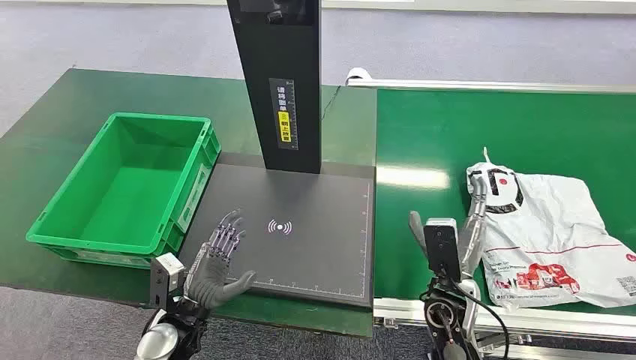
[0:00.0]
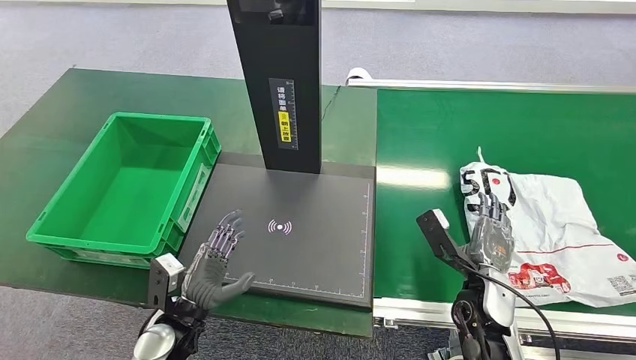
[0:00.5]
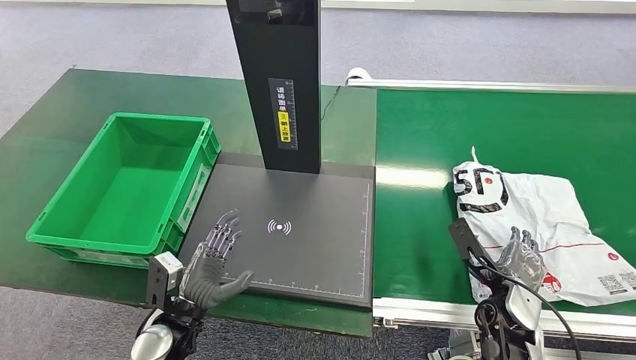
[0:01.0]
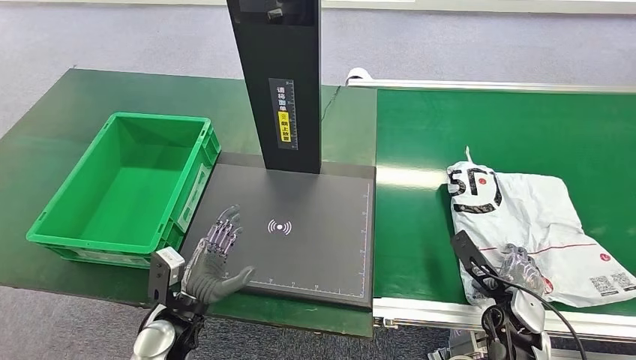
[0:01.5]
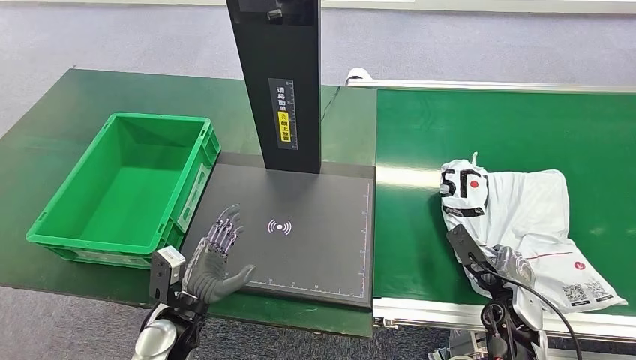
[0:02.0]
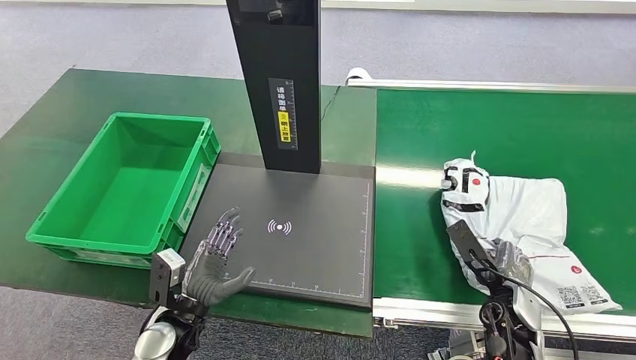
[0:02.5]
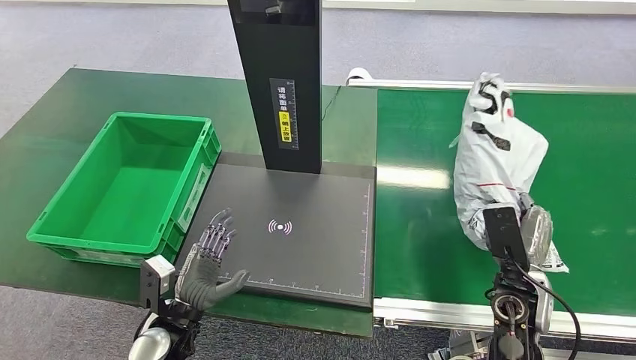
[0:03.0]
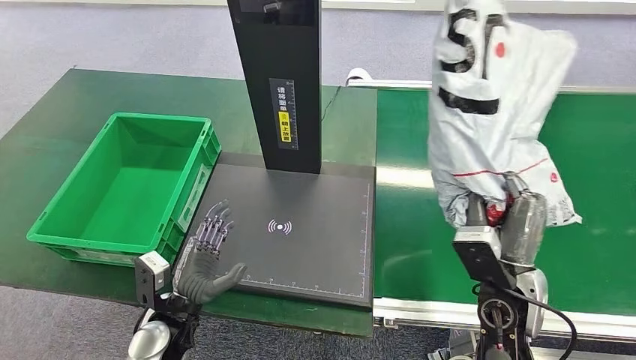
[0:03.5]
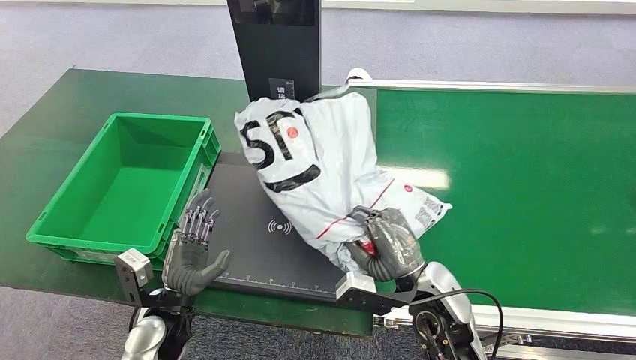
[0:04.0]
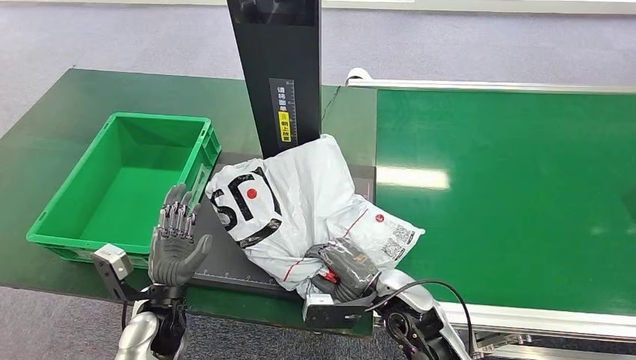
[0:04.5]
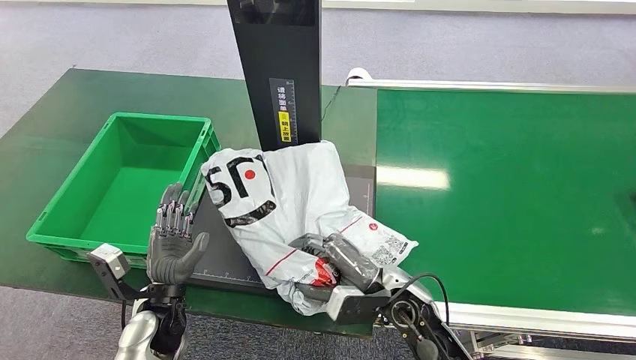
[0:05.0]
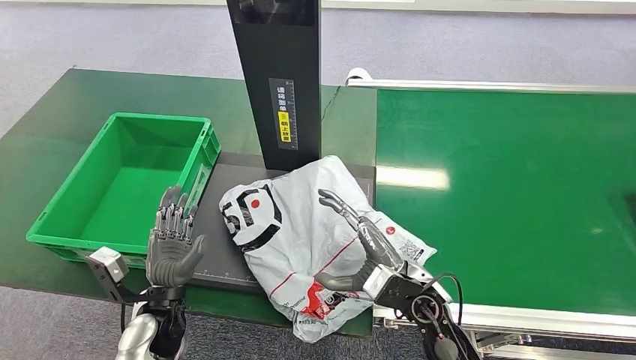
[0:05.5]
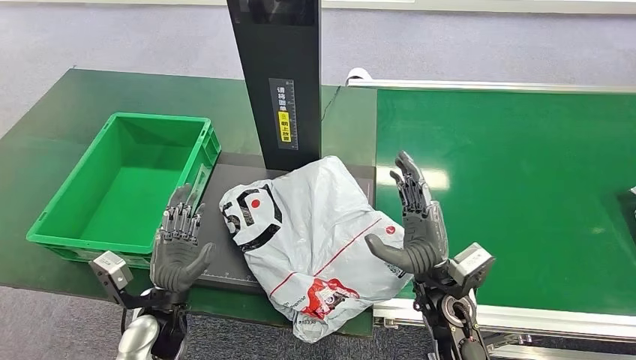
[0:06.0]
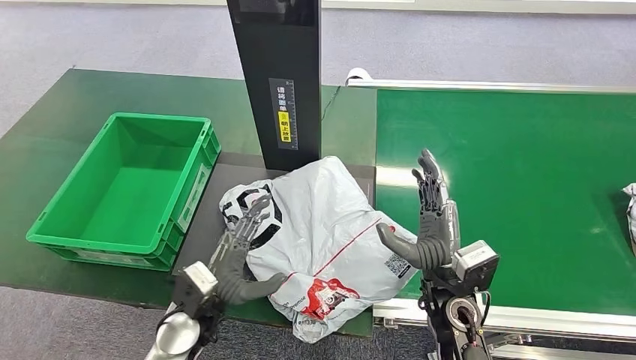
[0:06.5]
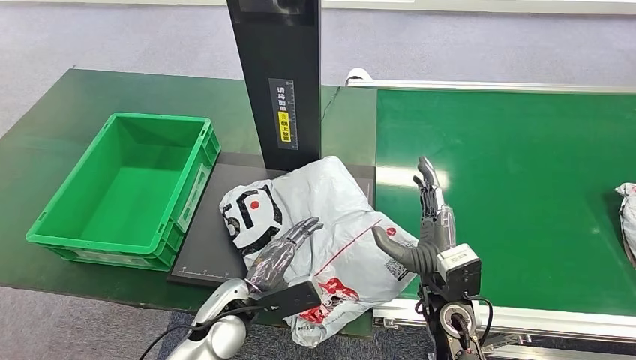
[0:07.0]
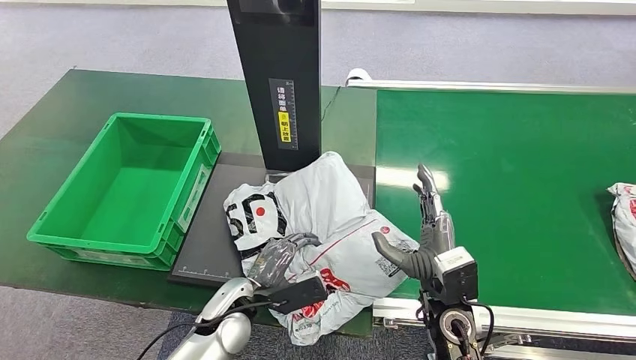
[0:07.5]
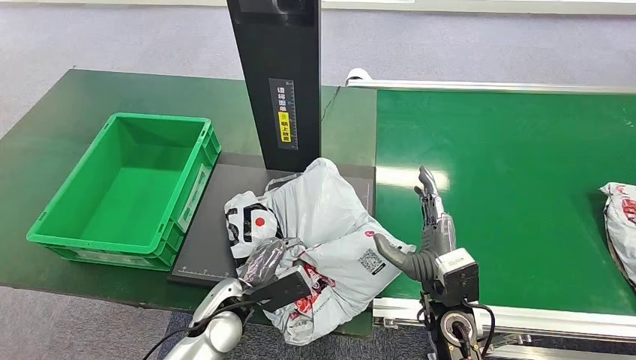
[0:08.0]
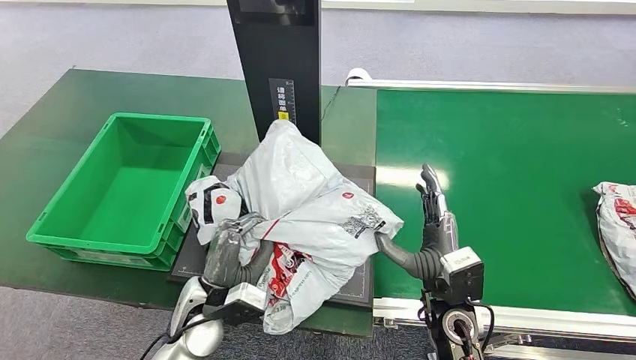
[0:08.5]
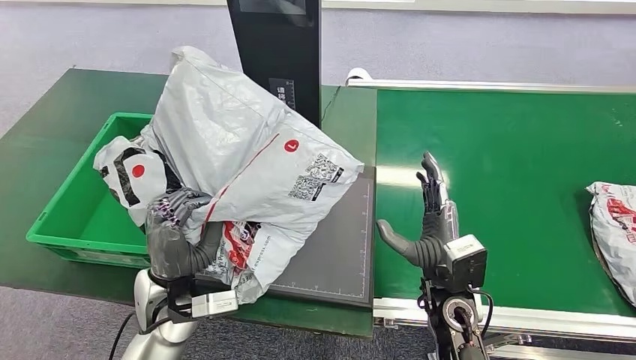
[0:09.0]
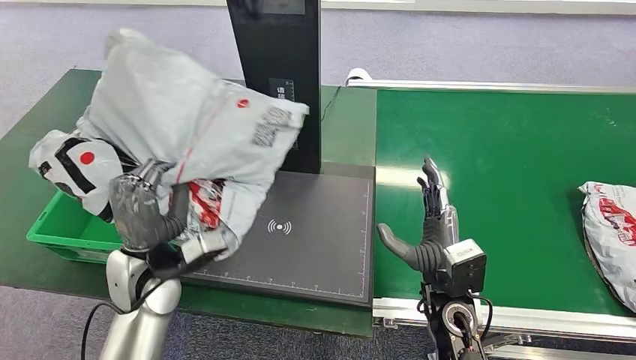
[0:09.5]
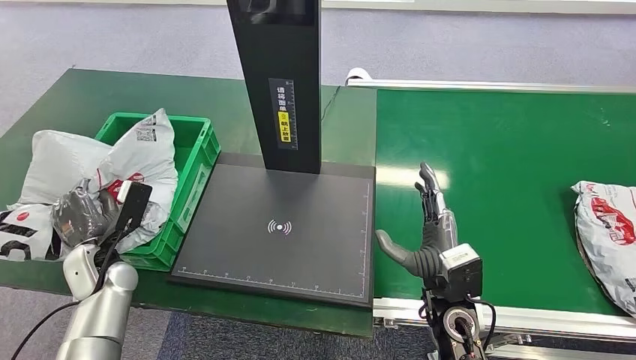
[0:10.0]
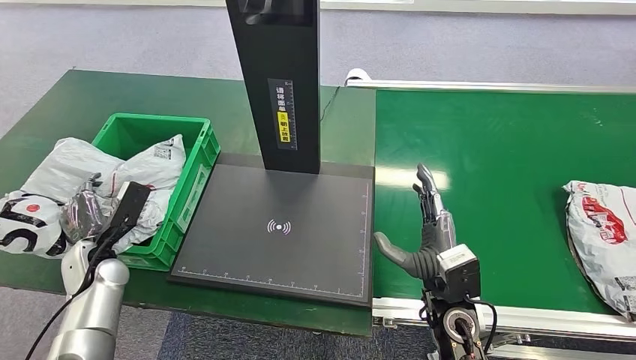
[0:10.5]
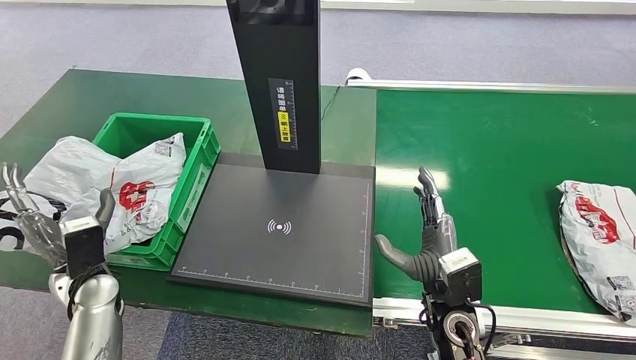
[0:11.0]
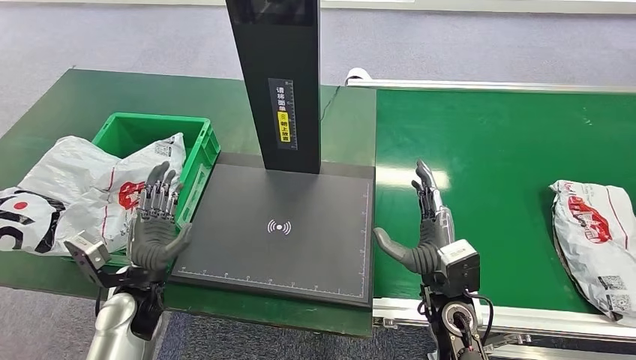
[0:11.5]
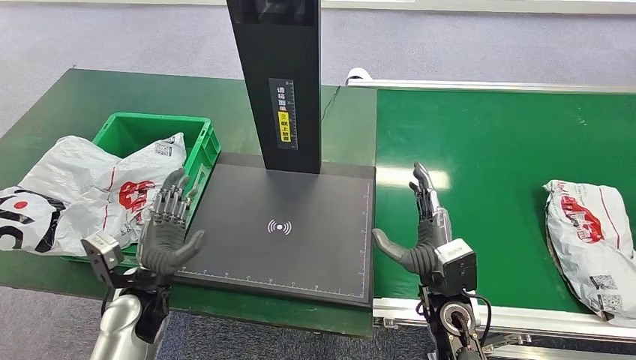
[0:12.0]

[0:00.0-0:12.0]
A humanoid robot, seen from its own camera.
Task of the whole recording: Weigh the package on the weighing device and place it in the left basket.
Step, 0:00.0 to 0:02.5: Pick up the package from the conveyor belt.
Step, 0:03.0 to 0:06.0: Place the package onto the inbound machine.
Step, 0:06.5 to 0:09.0: Pick up the package from the inbound machine.
Step, 0:09.5 to 0:12.0: Place the package into the parcel locker.
0:06.0 to 0:08.0: The left hand moves to the right, about 10 cm.
0:10.0 to 0:12.0: The left hand moves to the right and backward, some 10 cm.
